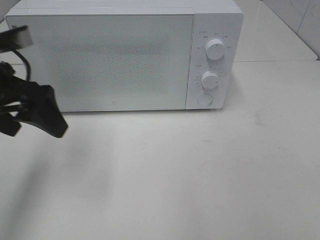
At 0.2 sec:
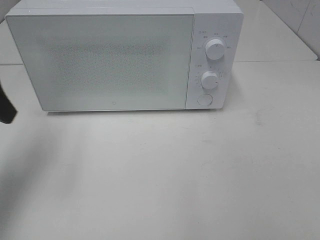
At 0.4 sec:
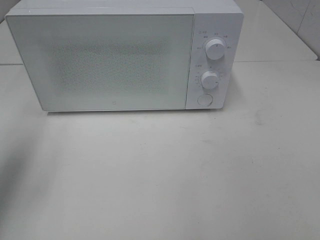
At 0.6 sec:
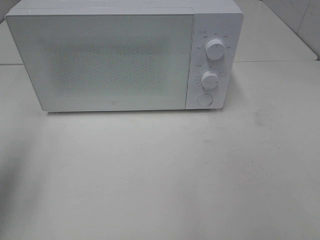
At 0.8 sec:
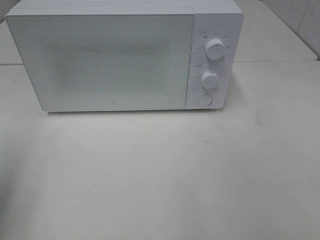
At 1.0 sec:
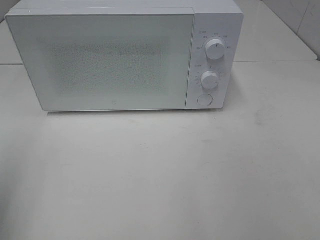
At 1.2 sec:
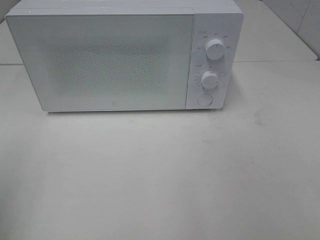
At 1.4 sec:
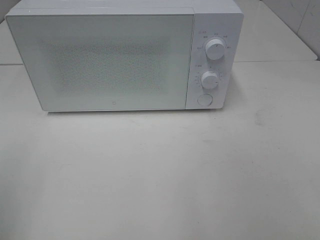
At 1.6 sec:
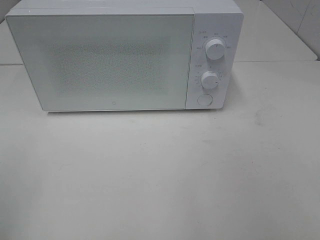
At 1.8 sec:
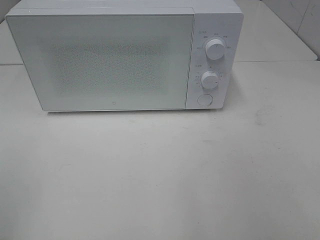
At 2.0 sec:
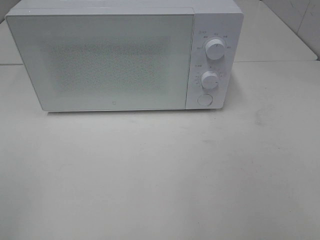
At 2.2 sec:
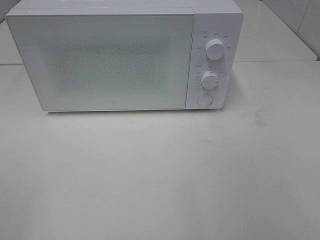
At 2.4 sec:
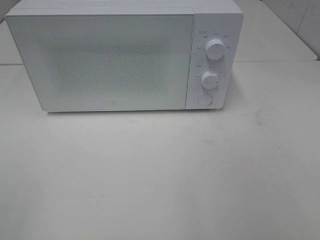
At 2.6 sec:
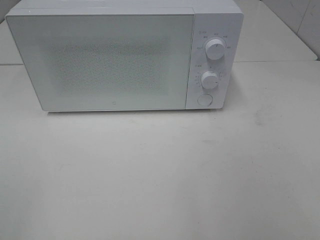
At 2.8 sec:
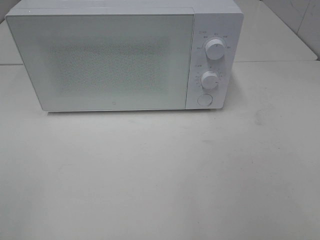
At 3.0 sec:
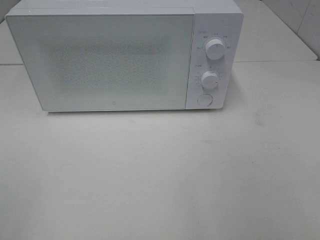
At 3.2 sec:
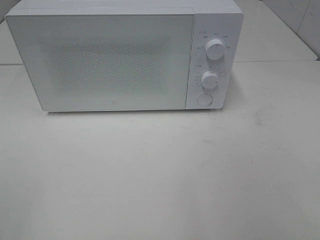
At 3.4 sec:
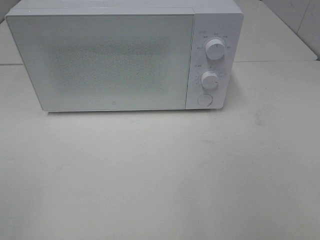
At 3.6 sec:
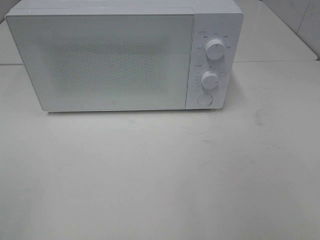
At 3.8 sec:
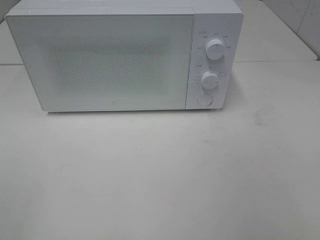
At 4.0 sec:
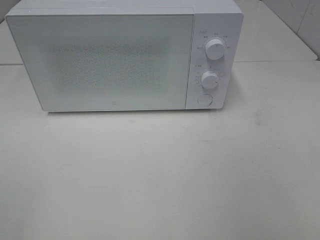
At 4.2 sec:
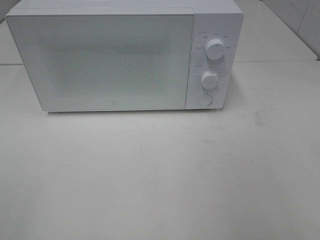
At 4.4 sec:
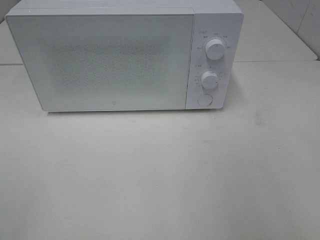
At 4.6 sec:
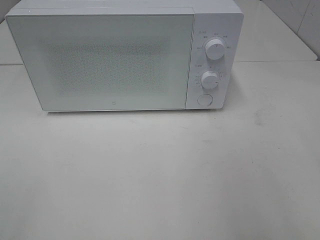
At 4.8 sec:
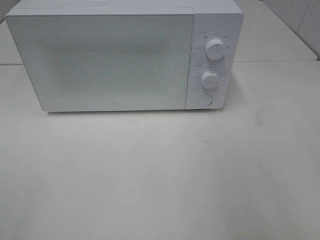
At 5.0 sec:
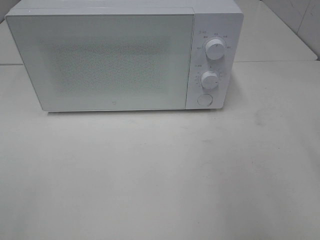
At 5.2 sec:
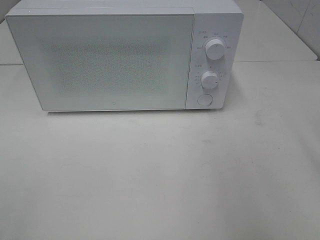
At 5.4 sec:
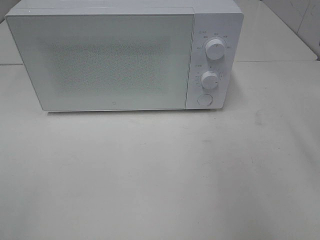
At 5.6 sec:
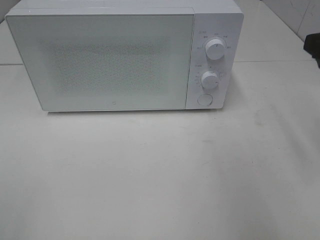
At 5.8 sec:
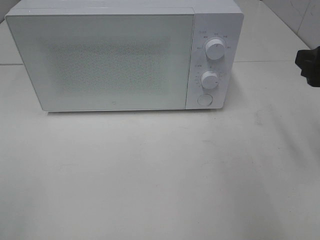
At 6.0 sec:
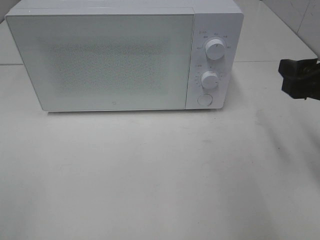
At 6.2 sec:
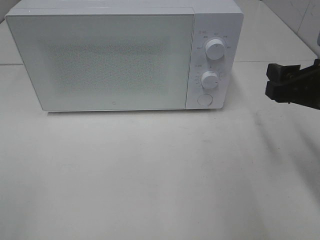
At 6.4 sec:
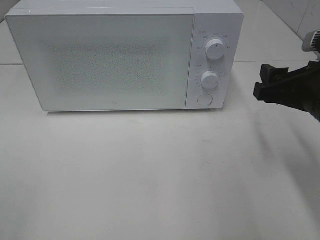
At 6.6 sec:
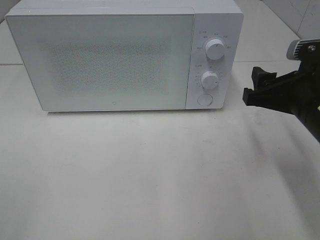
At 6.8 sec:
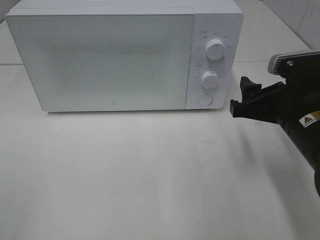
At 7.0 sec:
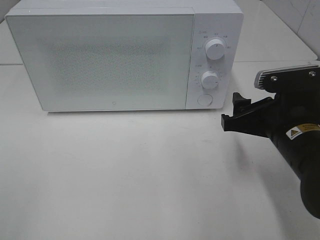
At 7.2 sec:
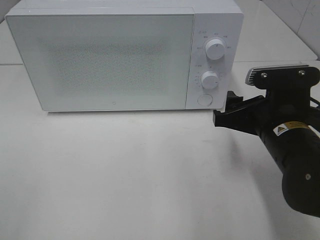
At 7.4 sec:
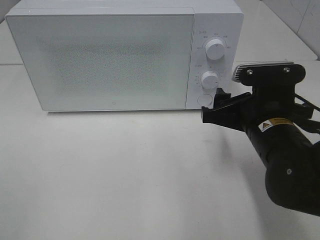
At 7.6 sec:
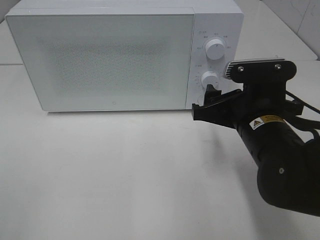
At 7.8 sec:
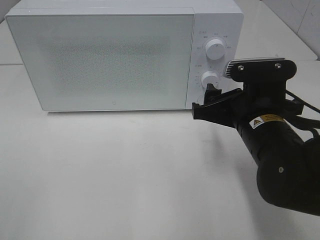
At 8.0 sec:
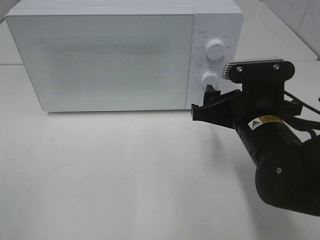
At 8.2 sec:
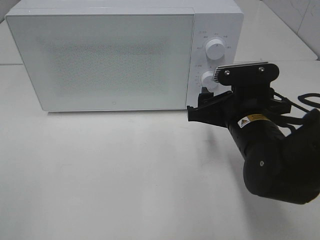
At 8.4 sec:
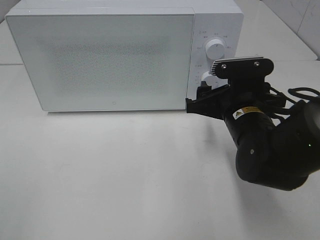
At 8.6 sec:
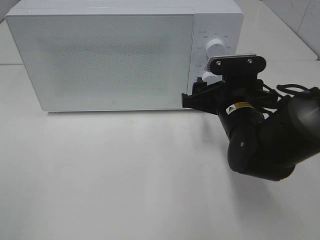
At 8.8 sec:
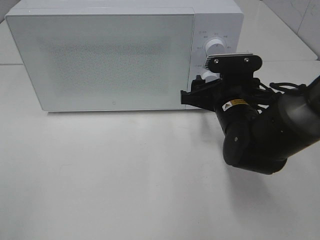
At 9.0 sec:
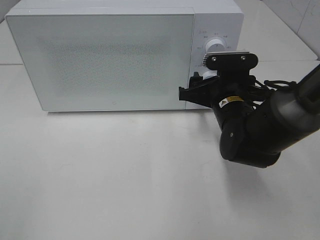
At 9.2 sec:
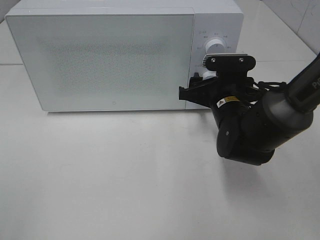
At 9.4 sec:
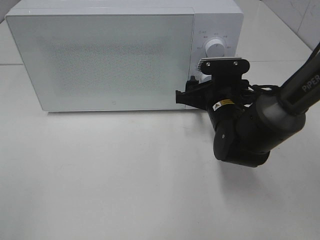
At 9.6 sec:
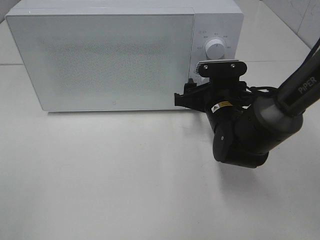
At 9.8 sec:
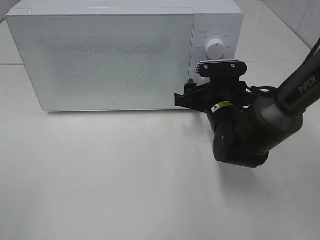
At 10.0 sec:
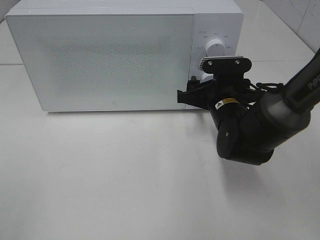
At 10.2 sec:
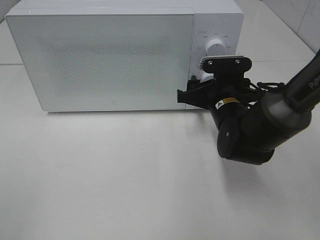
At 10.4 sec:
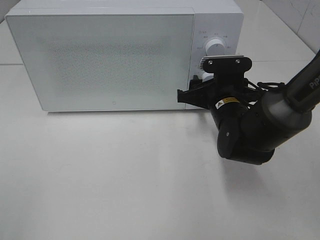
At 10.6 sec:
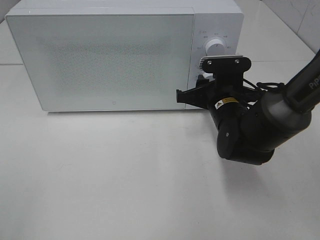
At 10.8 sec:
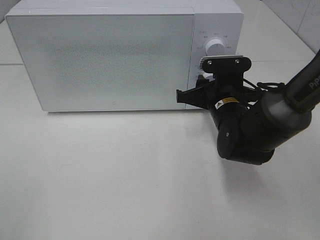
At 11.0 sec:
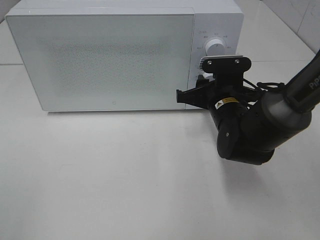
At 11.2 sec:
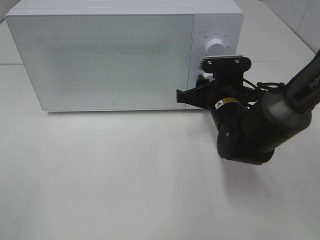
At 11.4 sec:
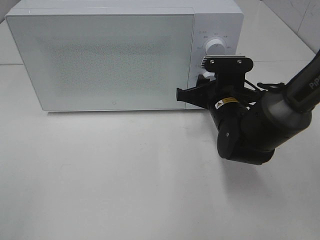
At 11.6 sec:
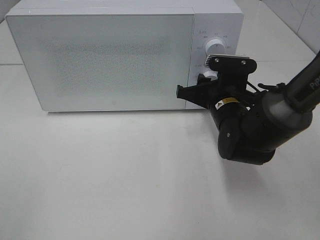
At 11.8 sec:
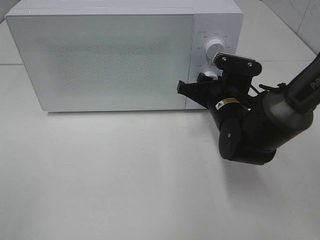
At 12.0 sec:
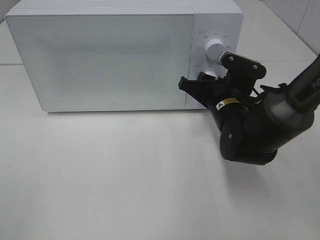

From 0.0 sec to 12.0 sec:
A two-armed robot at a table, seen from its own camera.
Task of the whole recording: Heat the burger.
From 0.0 sec to 1.6 sec: The left gripper shifts about 20 cm backward and to the left.
From 4.4 sec to 6.0 sec: The right gripper moves forward and downward, roughly 15 cm.
From 6.0 sec to 7.6 sec: The right gripper goes some 15 cm to the left and downward.
From 7.6 sec to 9.0 sec: The right gripper is displaced forward by about 10 cm.
From 9.0 sec to 10.4 sec: There are only small adjustments of the grippers.

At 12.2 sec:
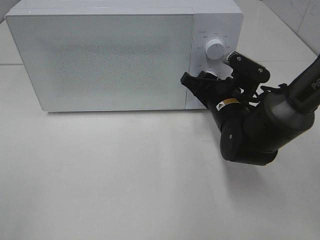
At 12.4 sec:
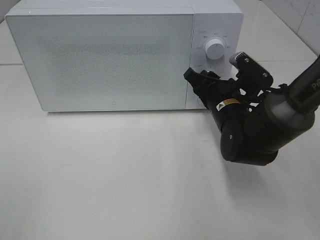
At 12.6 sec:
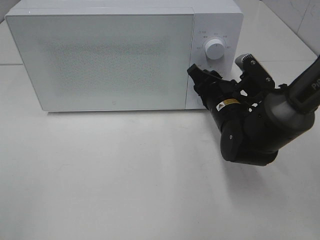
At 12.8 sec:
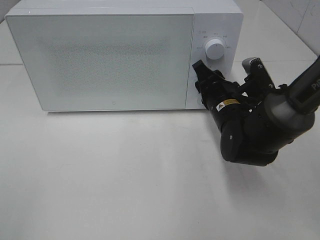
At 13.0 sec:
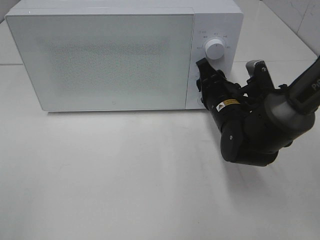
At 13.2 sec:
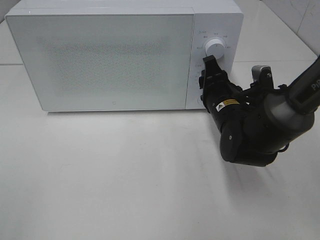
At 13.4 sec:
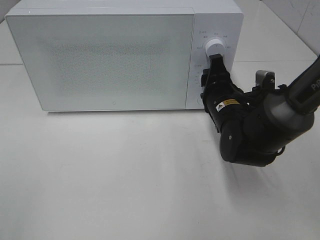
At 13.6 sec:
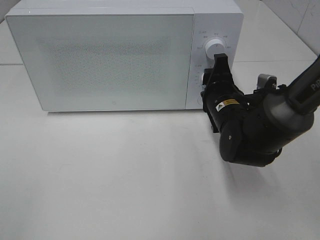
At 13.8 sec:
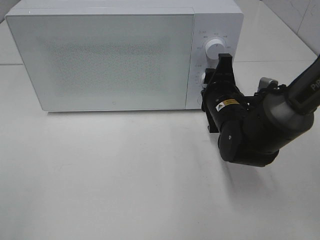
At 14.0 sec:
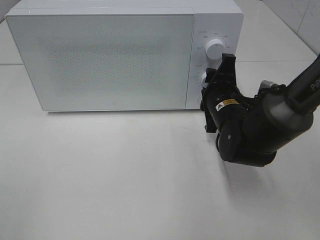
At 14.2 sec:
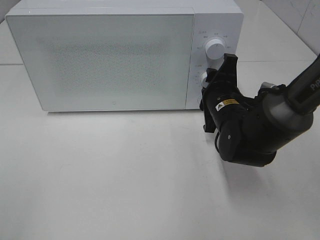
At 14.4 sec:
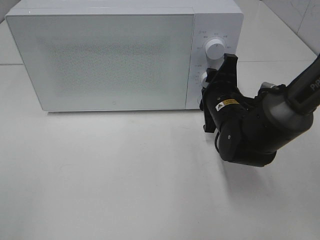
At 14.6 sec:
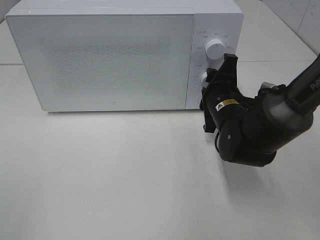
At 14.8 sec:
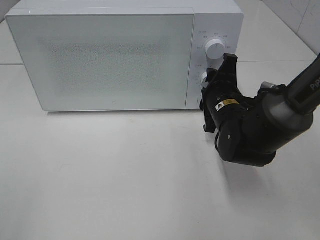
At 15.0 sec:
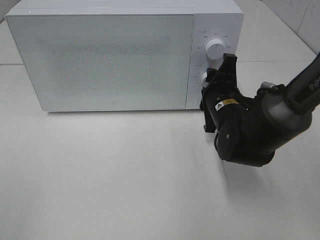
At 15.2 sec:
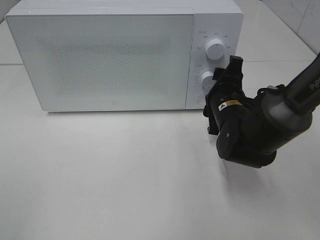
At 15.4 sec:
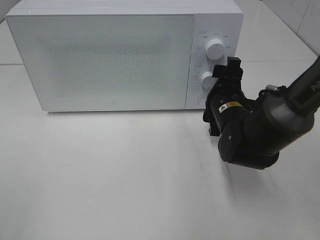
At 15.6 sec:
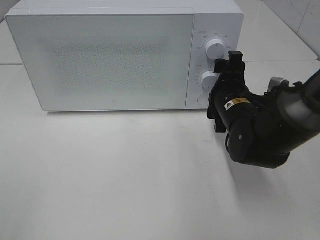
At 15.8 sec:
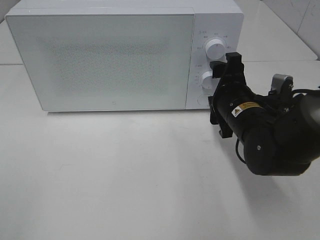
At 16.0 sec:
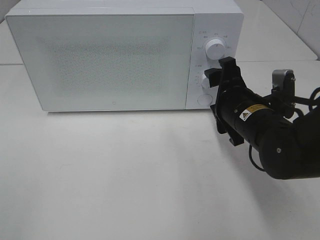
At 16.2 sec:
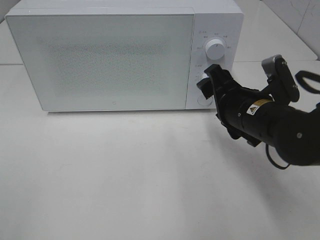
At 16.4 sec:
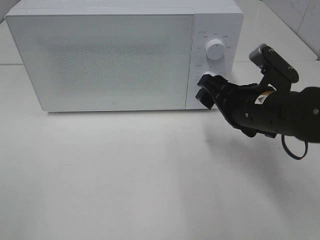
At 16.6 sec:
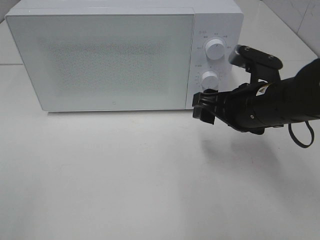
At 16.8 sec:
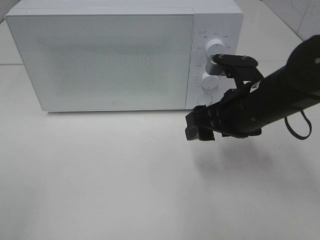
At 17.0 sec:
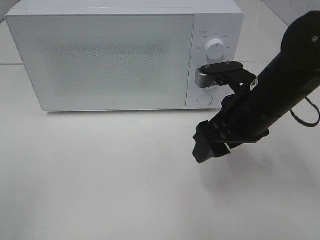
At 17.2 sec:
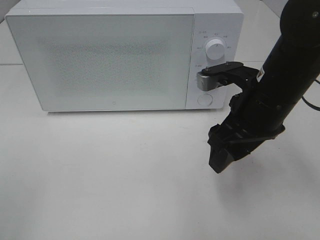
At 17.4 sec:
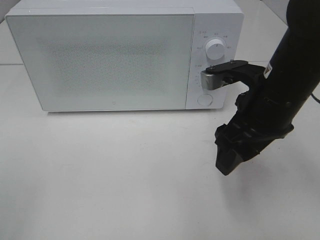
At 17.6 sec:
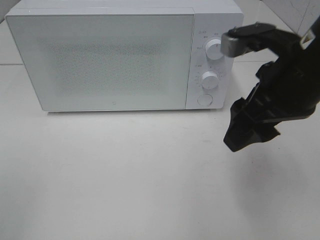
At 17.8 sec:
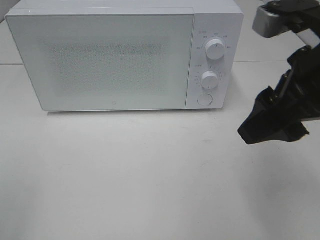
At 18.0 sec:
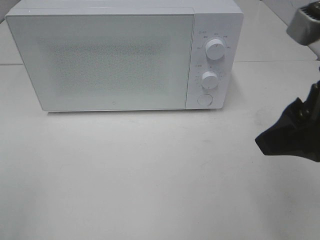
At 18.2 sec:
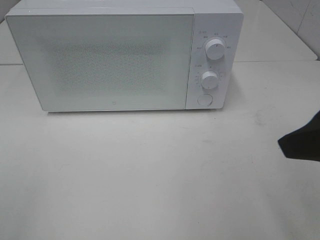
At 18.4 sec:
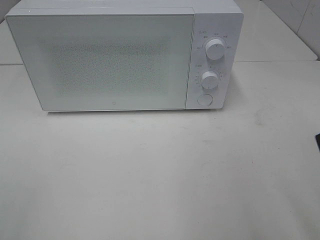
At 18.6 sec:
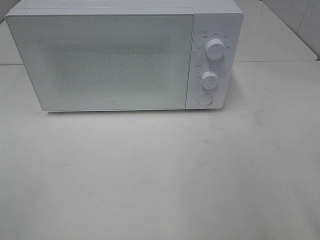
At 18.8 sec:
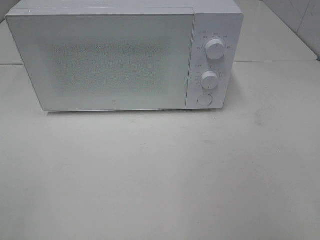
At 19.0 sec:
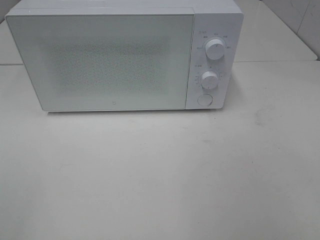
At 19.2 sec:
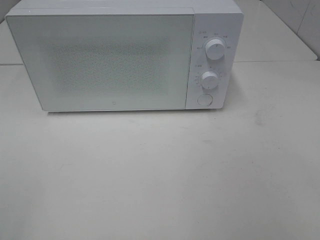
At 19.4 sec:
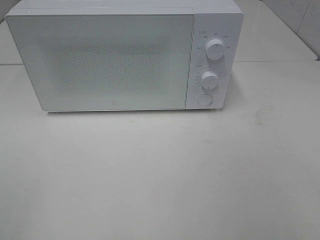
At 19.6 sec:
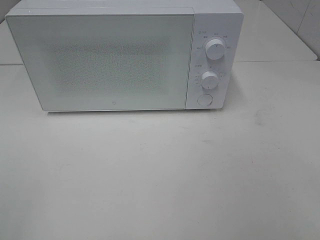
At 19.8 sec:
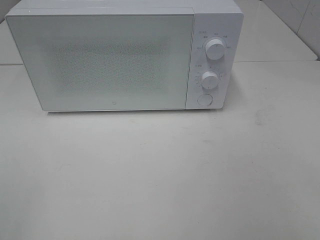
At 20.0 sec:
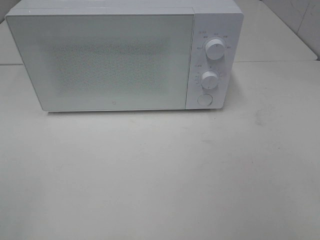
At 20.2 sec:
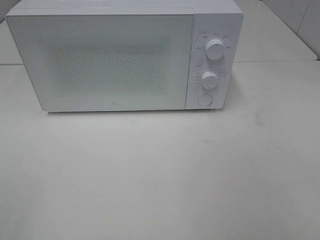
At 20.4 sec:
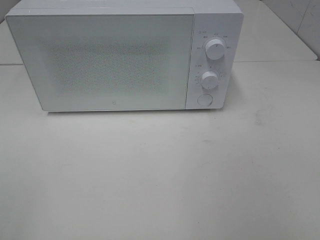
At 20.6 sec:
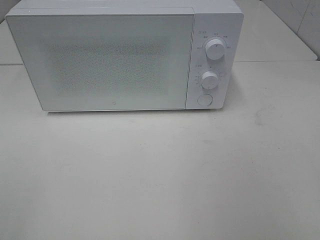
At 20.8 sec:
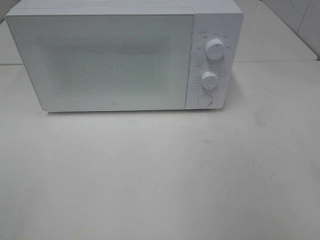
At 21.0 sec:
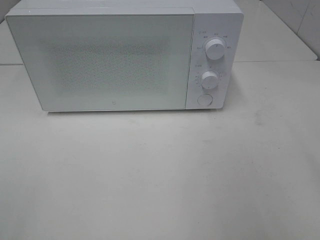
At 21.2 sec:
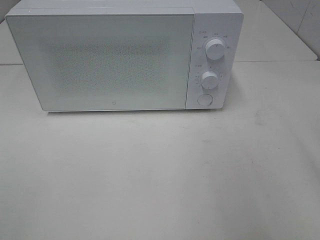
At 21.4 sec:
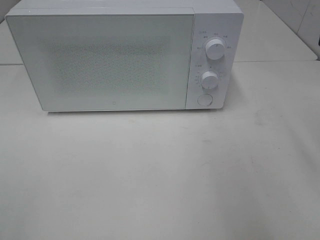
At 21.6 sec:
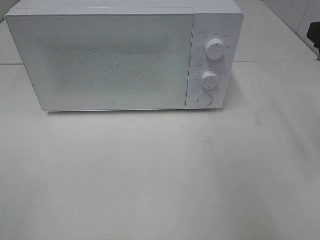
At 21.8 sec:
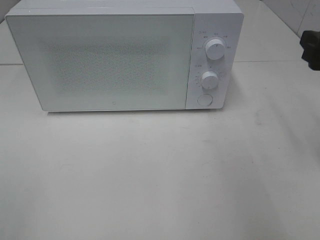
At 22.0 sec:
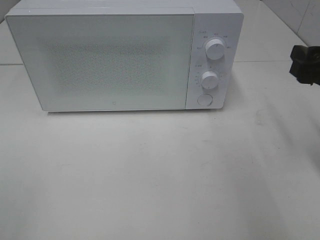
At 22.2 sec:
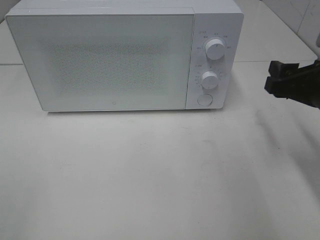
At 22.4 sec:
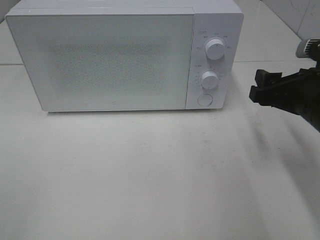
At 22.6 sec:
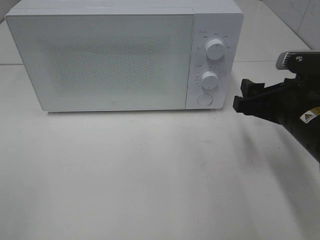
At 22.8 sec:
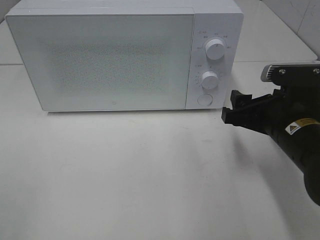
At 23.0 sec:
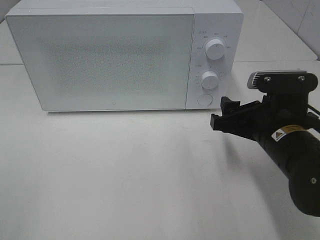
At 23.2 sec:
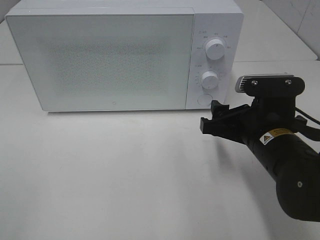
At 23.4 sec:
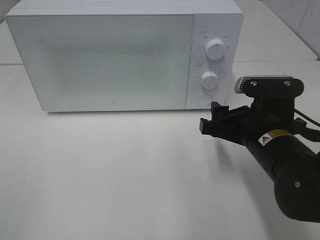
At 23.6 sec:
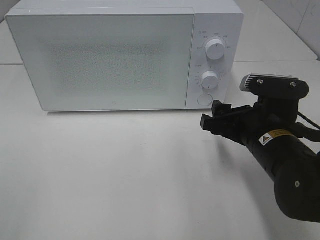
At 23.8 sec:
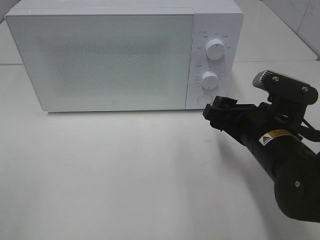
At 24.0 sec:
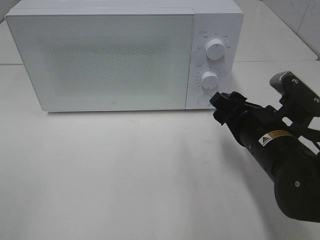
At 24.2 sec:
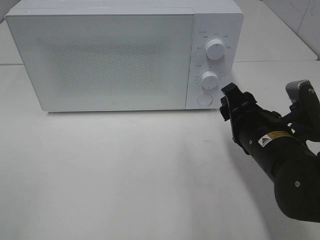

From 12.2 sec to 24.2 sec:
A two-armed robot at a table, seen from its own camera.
Task of the whole recording: Heat the burger.
Step, from 12.2 sec to 15.4 sec: Right hand: twist timer button.
From 13.8 sec to 15.2 sec: The grippers make only small movements.
From 15.2 sec to 16.6 sec: The right gripper moves upward and backward, about 10 cm.
From 16.6 sec to 18.2 sec: The right gripper travels backward, upward and to the right by some 20 cm.
From 18.2 sec to 19.8 sec: The right gripper shifts approximately 15 cm backward and to the right.
From 21.2 sec to 22.6 sec: The right gripper shifts some 20 cm downward, forward and to the left.
From 22.6 sec to 24.2 sec: The right gripper travels to the left by roughly 5 cm.
